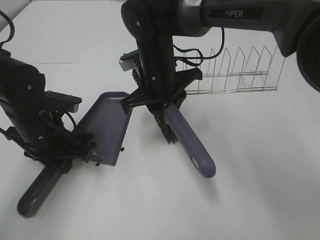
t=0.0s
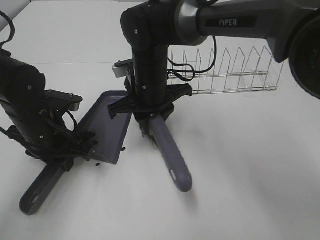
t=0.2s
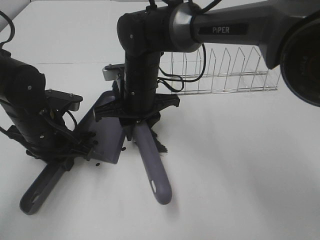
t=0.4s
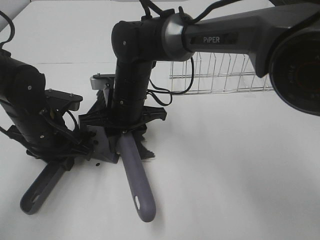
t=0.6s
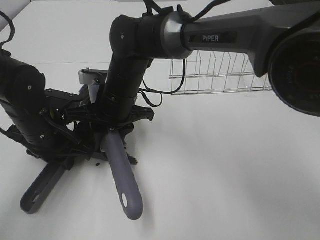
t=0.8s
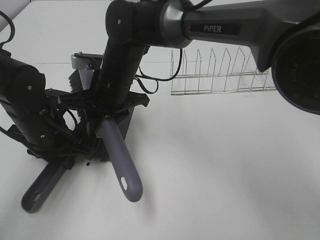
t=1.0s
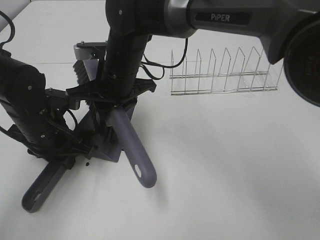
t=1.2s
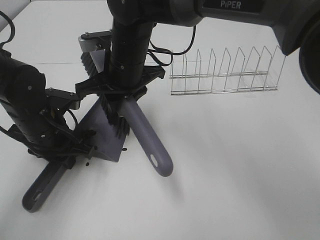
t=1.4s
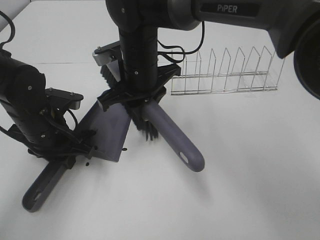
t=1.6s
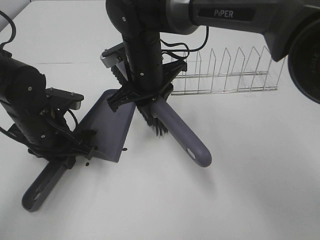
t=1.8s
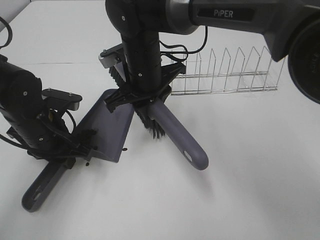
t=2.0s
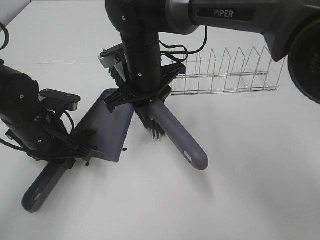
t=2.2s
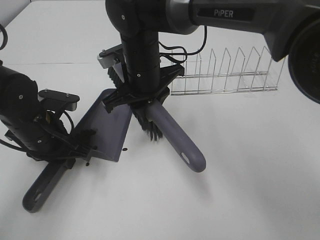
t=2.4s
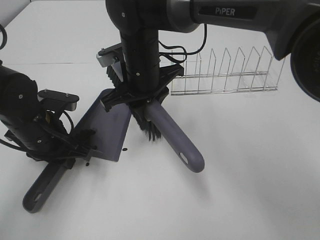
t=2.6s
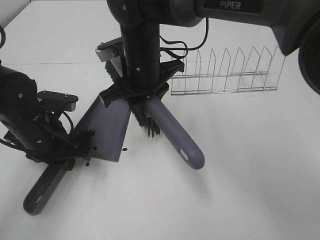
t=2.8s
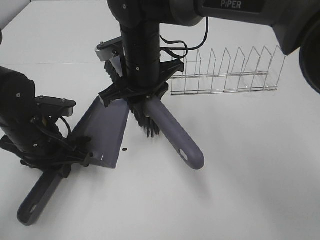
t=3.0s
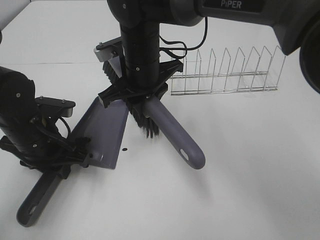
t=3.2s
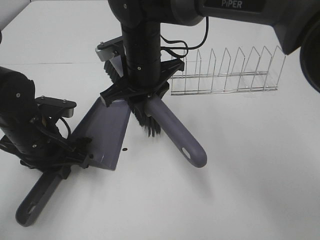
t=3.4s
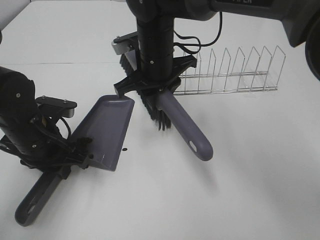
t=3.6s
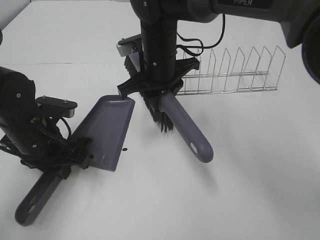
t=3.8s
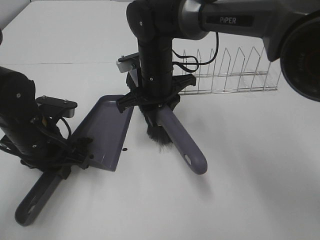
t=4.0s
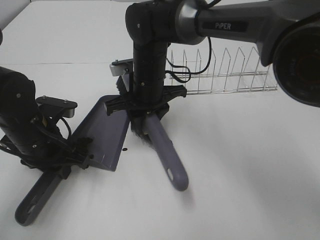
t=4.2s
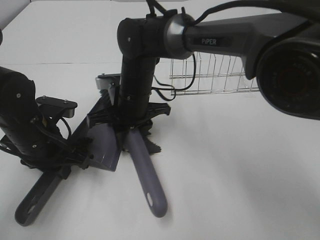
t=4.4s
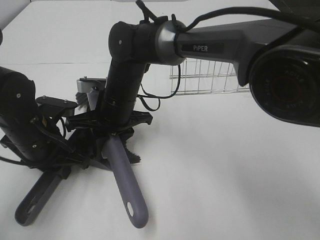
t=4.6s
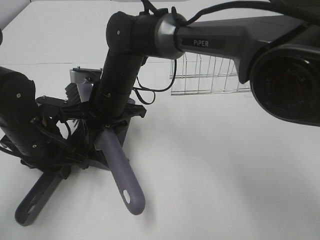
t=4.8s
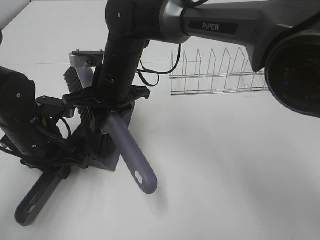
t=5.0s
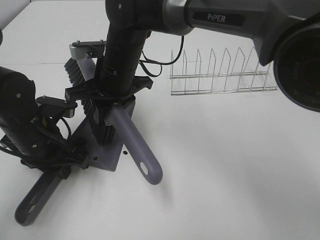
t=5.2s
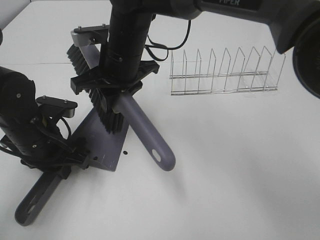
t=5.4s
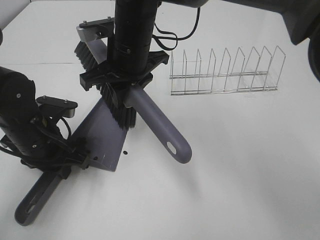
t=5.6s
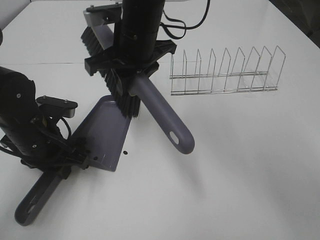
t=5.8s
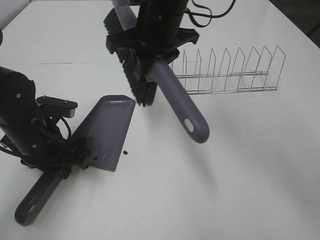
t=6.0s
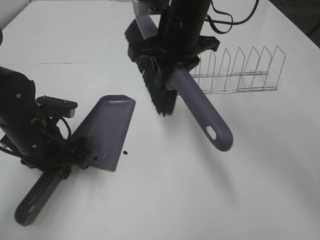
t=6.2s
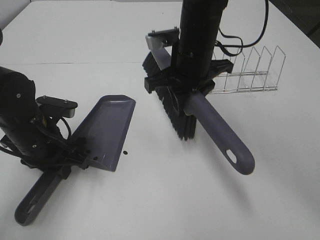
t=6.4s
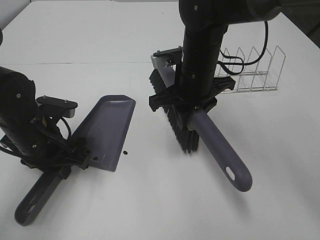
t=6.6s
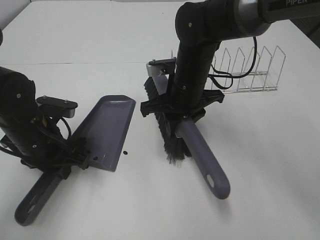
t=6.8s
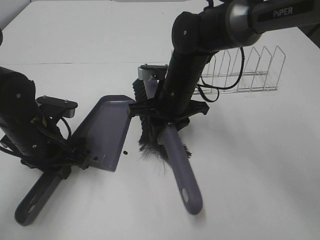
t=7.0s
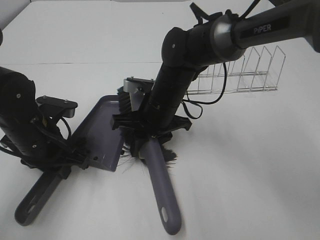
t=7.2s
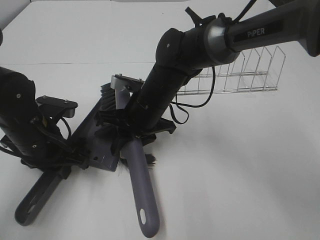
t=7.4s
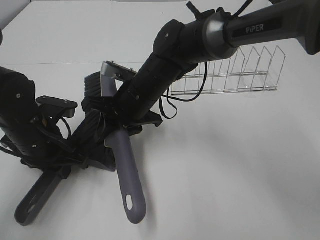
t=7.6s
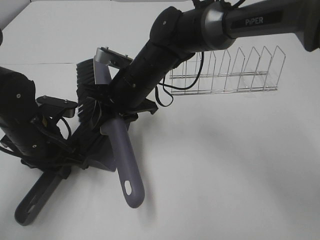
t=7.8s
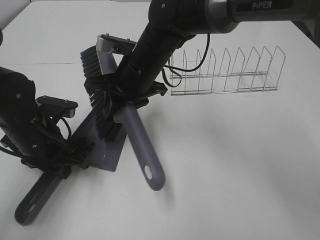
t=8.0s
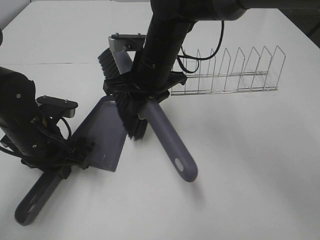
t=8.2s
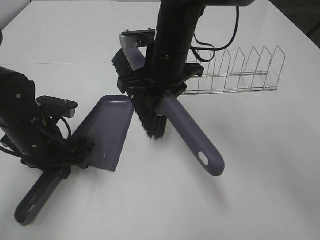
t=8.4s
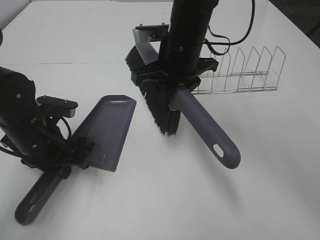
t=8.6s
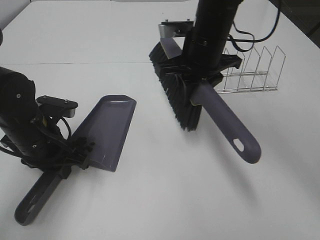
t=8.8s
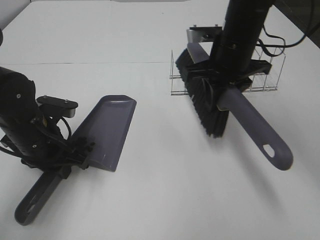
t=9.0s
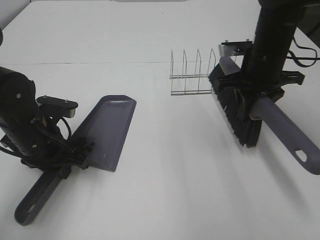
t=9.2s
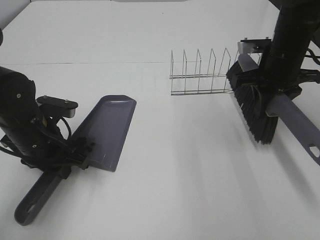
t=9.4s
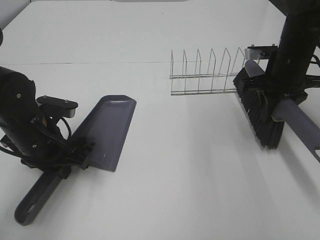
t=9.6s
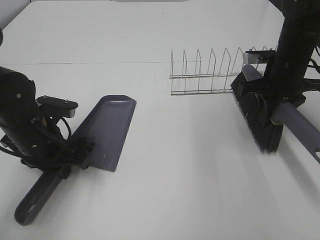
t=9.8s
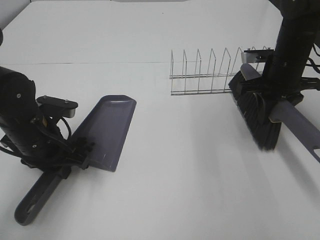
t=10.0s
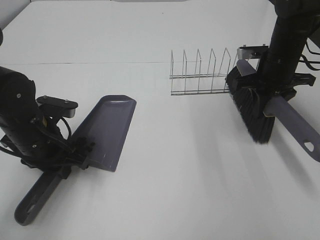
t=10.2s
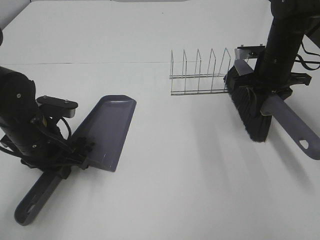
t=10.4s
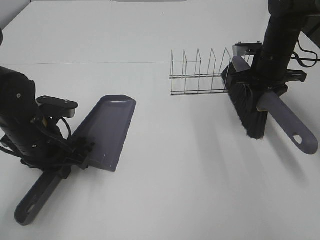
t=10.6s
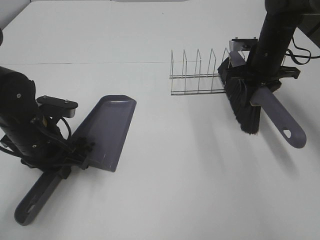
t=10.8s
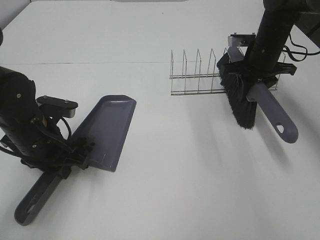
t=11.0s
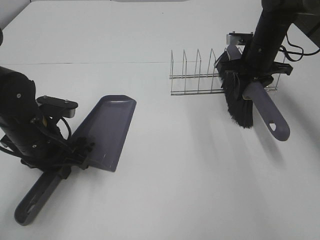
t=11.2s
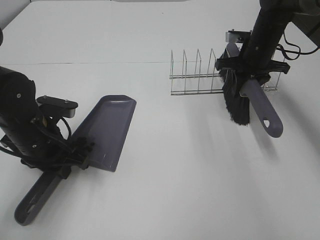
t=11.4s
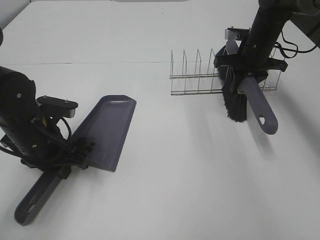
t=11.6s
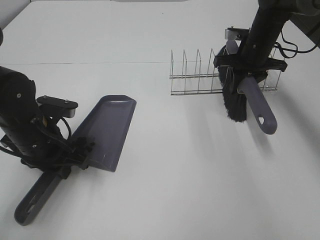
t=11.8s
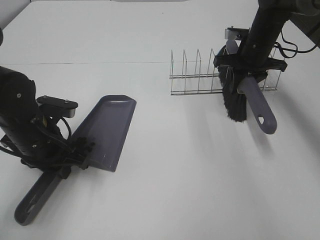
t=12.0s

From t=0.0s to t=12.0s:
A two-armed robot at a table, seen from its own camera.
Task of the whole recording: Sweep Coffee Bean.
Step, from t=0.0s to t=8.0s: Right hand:sweep the coffee beans into the dustpan.
From t=1.6s to t=3.0s: The grippers stay close to where they were, moving slightly.
From t=3.0s to t=4.4s: The right gripper is displaced downward by some 5 cm.
From t=4.4s to t=6.0s: The right gripper shifts roughly 15 cm upward.
From t=6.0s to t=7.6s: The right gripper heads downward, covering roughly 15 cm.
From t=7.6s to t=9.0s: The right gripper travels to the right and upward by approximately 15 cm.
From t=9.0s to t=10.4s: The right gripper travels to the right and downward by some 10 cm.
From t=10.4s to t=12.0s: The right gripper shifts roughly 5 cm forward.

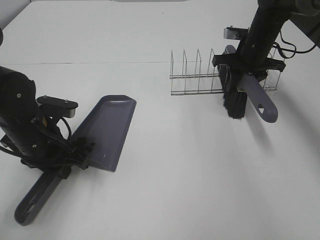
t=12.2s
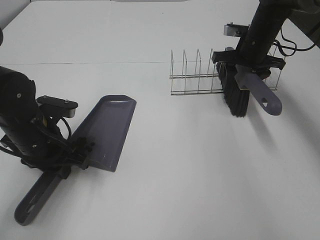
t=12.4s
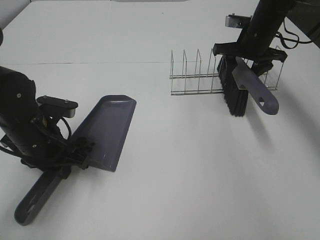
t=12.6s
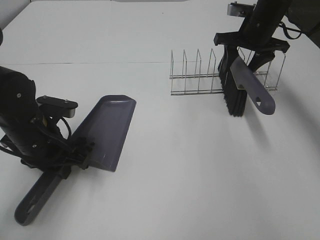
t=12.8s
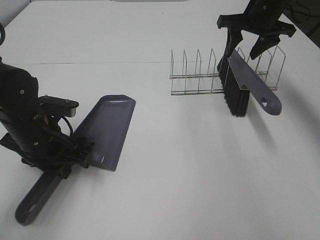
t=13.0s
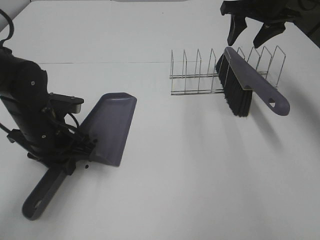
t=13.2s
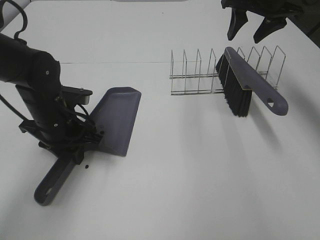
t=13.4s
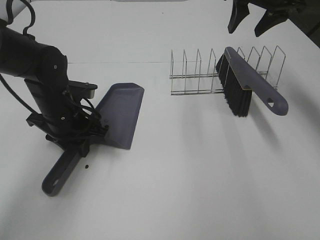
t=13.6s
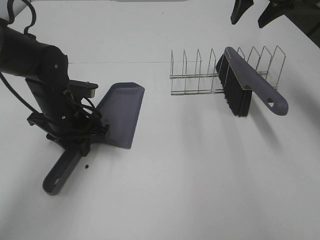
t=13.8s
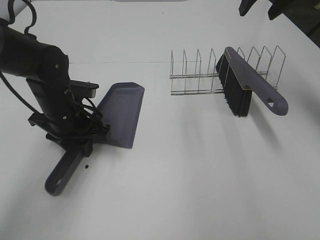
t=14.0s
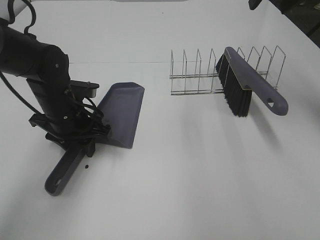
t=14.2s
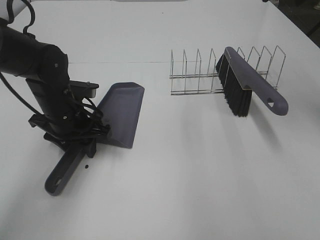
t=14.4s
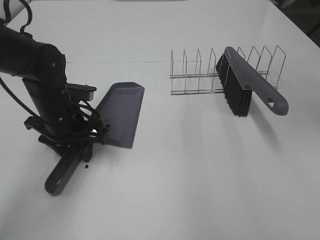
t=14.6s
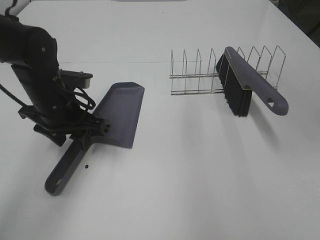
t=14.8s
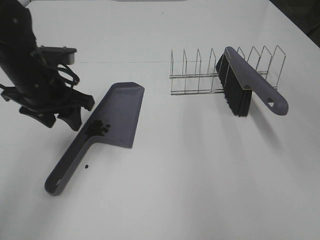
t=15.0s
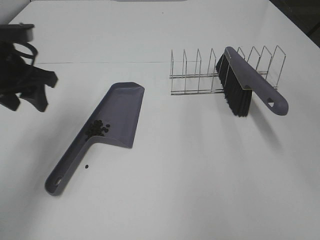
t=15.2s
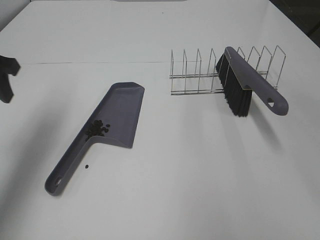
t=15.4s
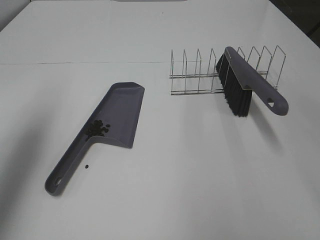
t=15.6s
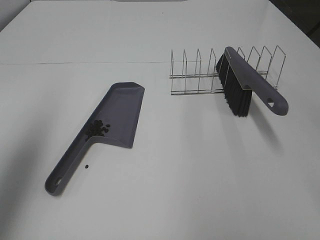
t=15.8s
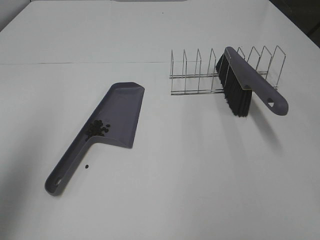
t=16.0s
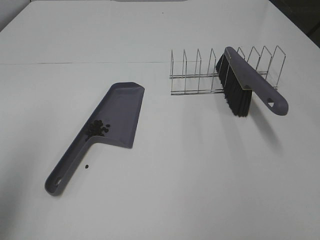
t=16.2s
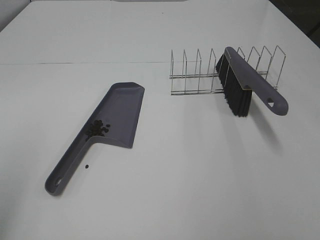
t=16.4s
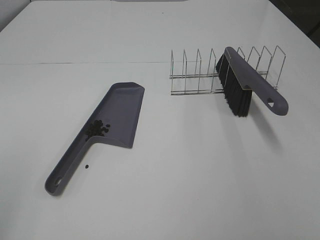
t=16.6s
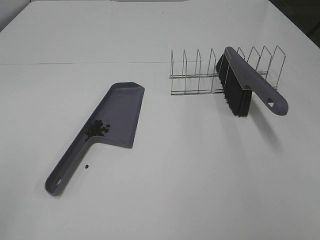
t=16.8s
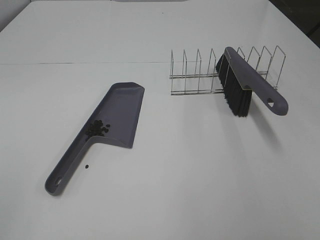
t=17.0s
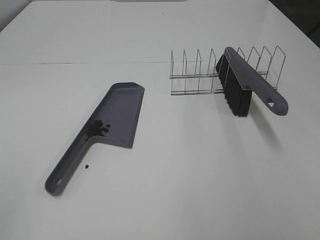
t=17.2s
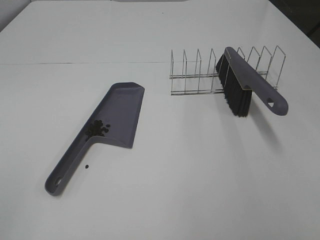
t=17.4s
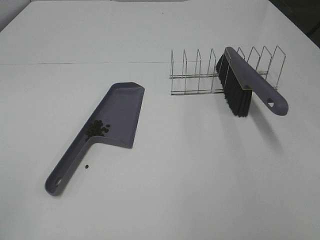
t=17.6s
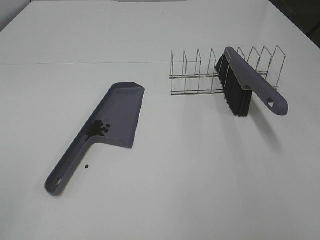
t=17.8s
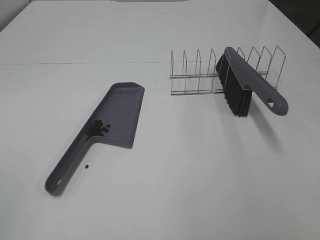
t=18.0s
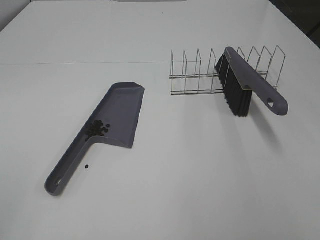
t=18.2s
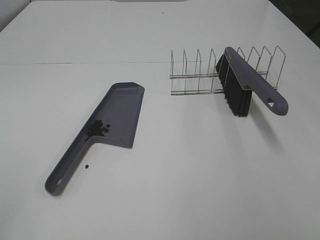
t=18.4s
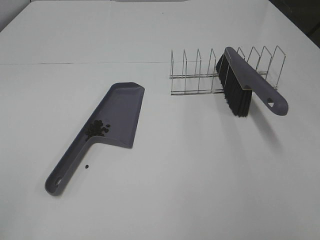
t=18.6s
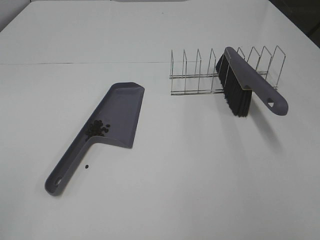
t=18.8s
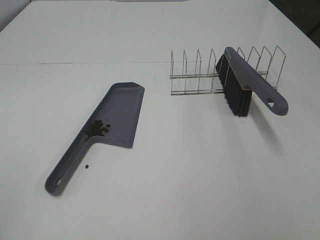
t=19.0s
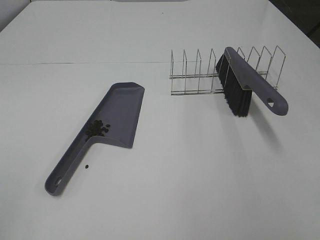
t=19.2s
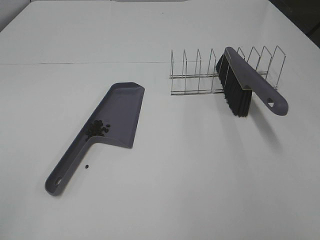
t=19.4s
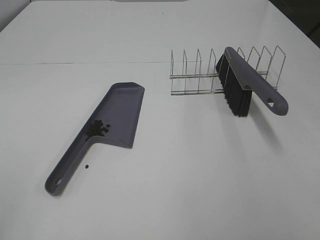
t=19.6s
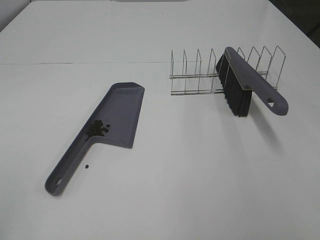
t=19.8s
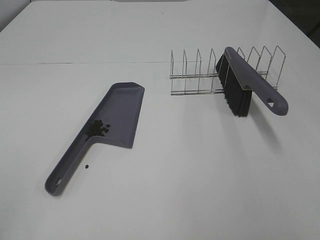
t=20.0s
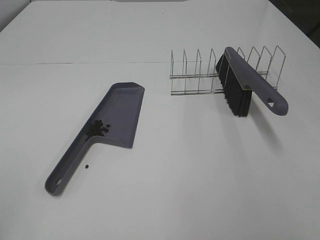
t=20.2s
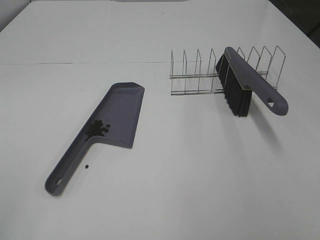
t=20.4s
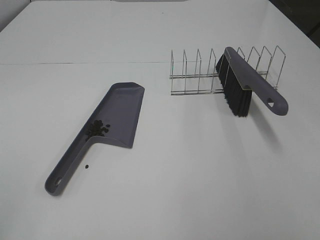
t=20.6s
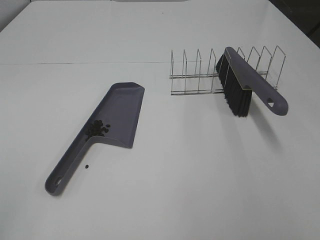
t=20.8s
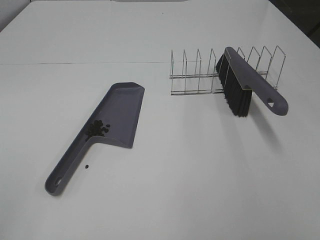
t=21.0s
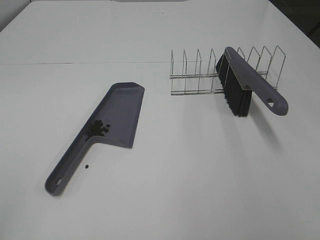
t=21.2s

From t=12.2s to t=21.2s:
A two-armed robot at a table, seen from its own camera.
Task of the whole recording: Sweep Coffee Bean.
Step, from t=12.6s to t=14.8s: Left hand:place the dustpan on the table.
From t=12.2s to t=13.8s: The right gripper travels upward by approximately 15 cm, and opens. Meanwhile the left gripper heads forward, covering roughly 5 cm.
From t=13.8s to t=15.2s: The right gripper moves backward, approximately 25 cm; the left gripper is displaced upward and to the left by approximately 15 cm.
From t=15.2s to t=16.6s: The left gripper is displaced backward by about 30 cm.
From t=18.2s to t=21.2s: Both grippers stay put.
